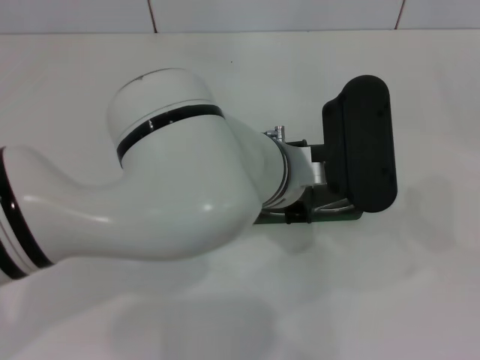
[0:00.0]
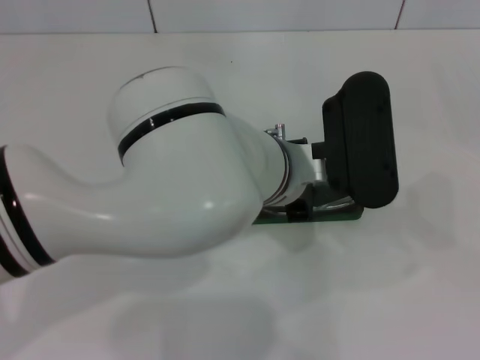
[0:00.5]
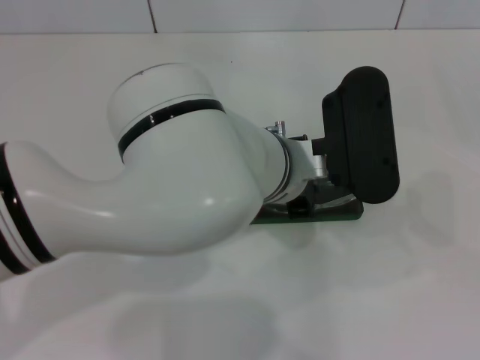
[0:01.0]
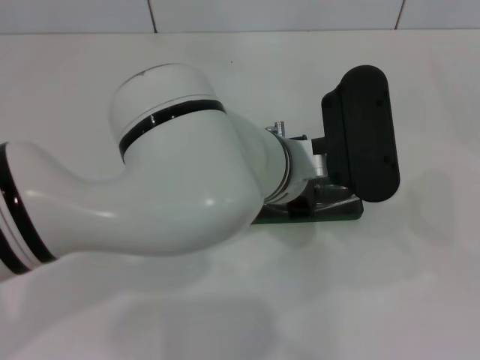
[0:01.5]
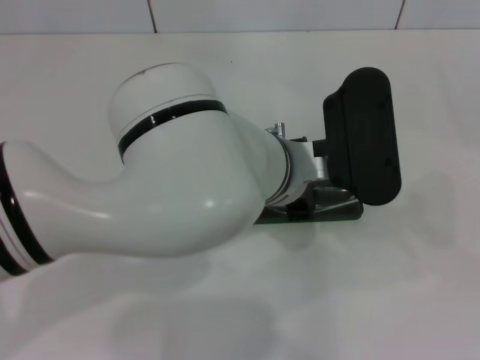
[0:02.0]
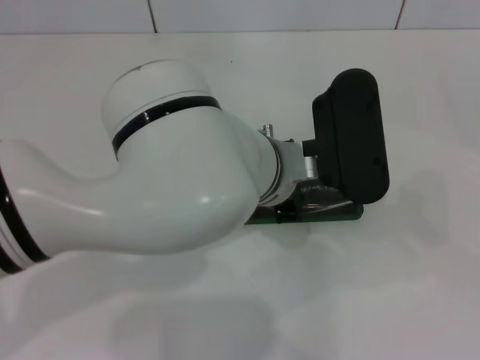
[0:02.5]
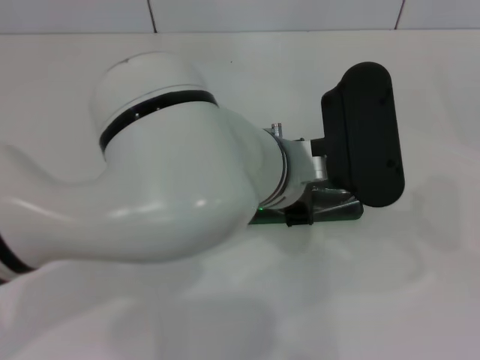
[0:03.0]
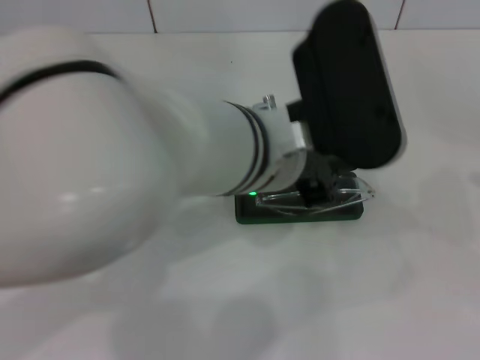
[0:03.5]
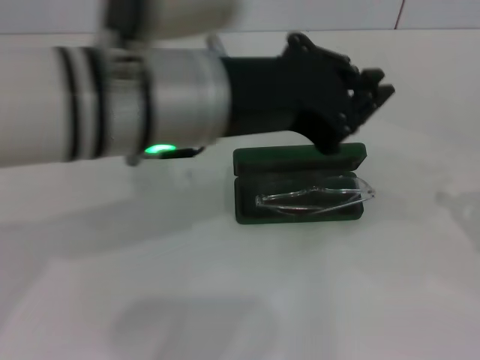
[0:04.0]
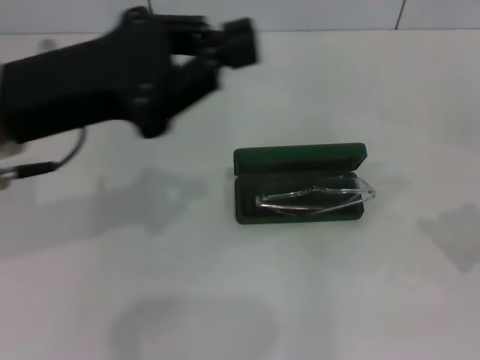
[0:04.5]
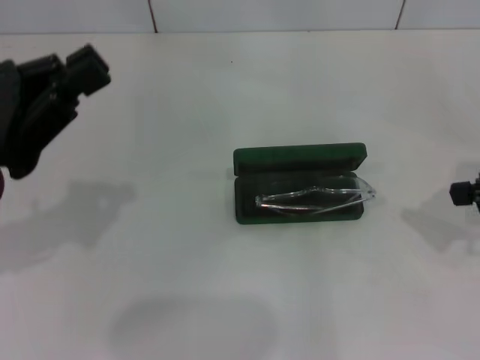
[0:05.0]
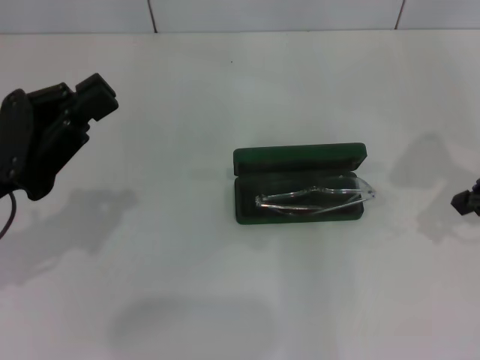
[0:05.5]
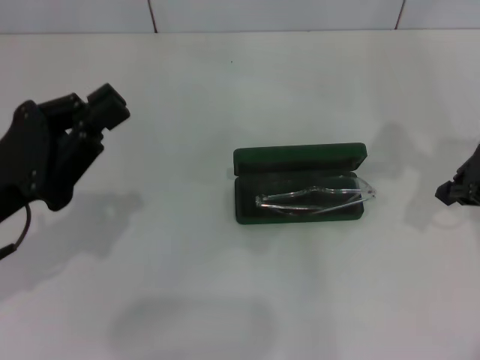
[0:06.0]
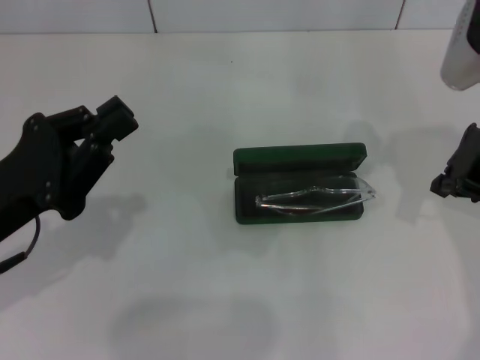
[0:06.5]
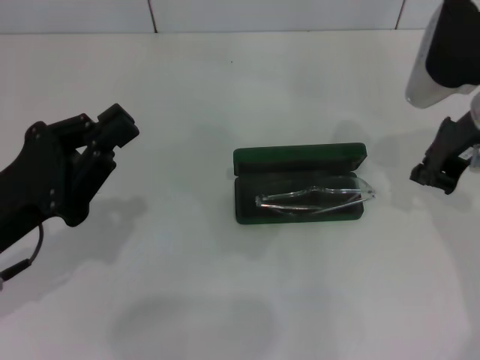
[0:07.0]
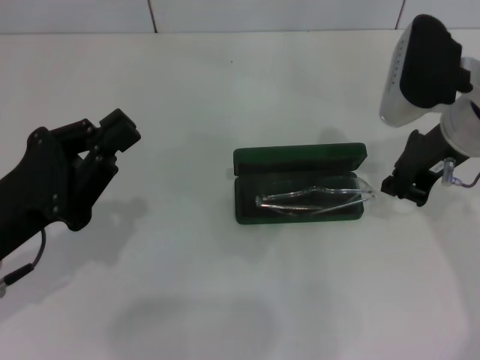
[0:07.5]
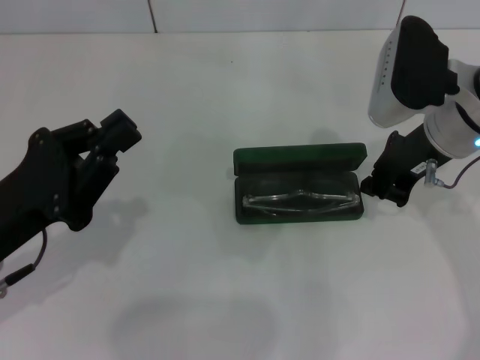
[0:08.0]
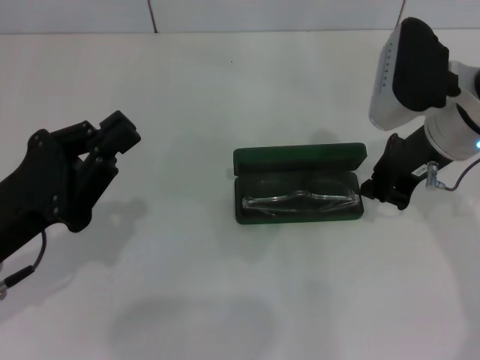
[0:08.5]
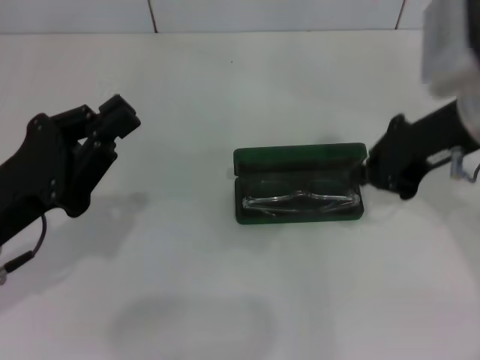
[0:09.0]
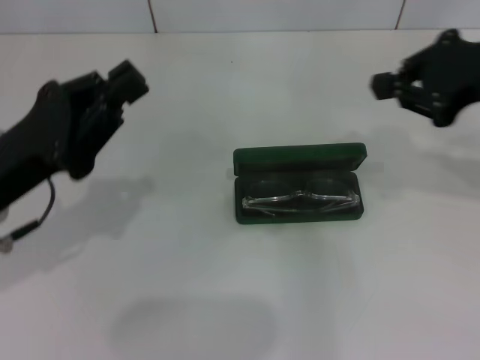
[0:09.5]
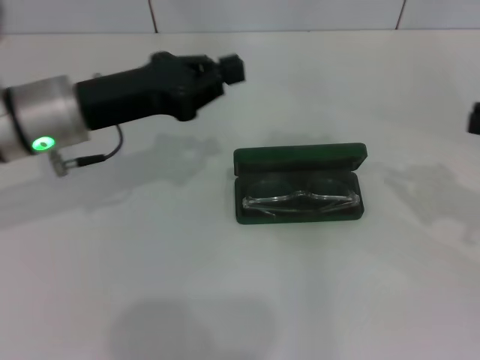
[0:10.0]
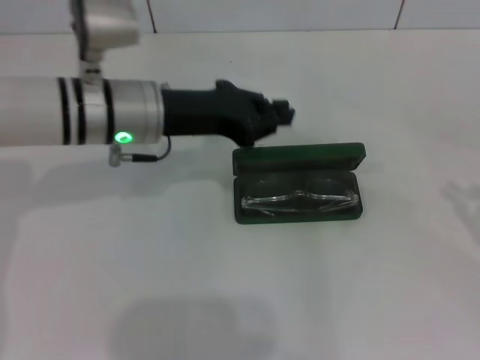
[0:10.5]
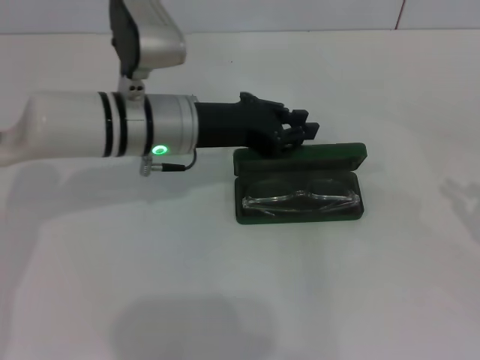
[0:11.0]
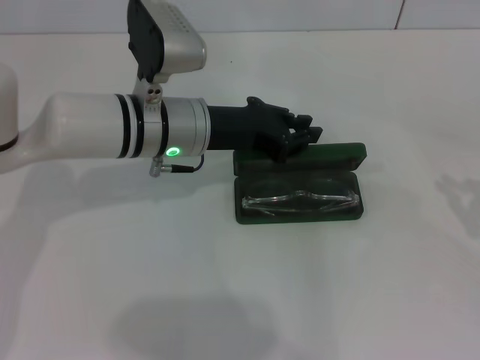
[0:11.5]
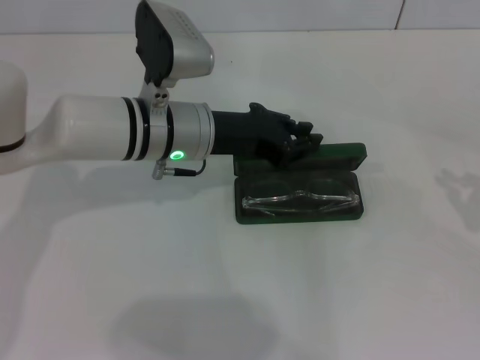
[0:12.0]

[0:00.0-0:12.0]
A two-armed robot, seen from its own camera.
0:00.0 to 0:02.0: Both grippers stay about where they are.
0:02.0 to 0:04.0: The right gripper goes roughly 5 cm forward, while the left gripper is displaced upward and to the left by about 15 cm.
0:04.0 to 0:06.0: The right gripper moves to the left, forward and upward, roughly 20 cm. Meanwhile the left gripper moves to the left and downward, about 20 cm.
0:06.0 to 0:08.0: The right gripper moves to the left, roughly 10 cm.
0:08.0 to 0:10.0: The right gripper shifts about 20 cm to the right and backward. Meanwhile the left gripper goes about 15 cm forward and to the right.
0:10.0 to 0:12.0: The right gripper travels downward by some 5 cm; the left gripper is displaced to the right by about 10 cm.

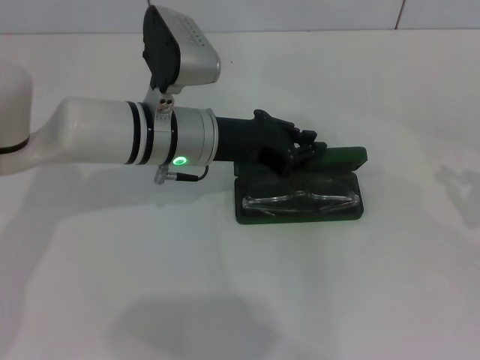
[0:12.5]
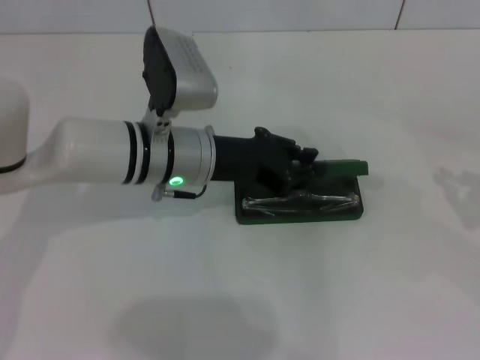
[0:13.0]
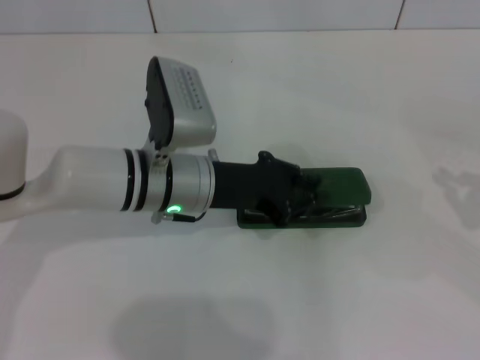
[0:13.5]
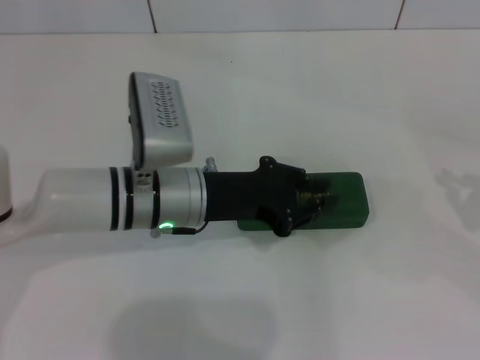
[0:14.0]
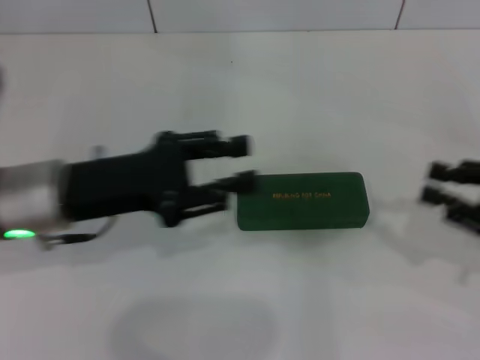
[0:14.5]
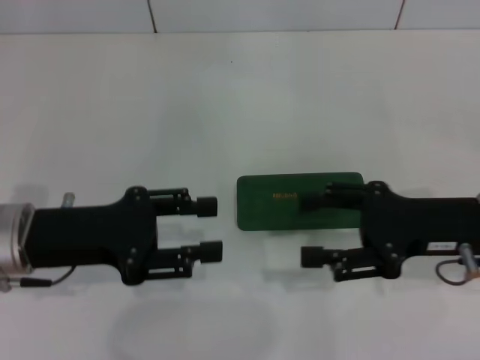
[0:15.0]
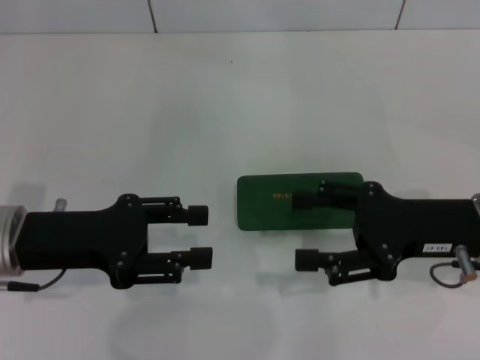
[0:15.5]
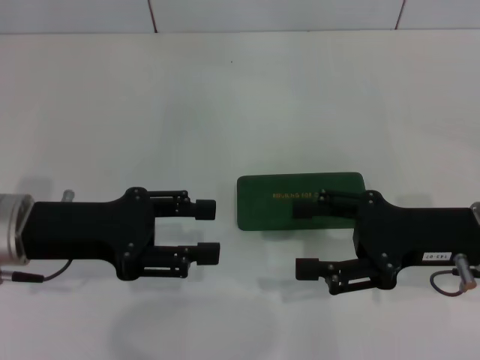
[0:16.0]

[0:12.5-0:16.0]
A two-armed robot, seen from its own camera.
0:12.5 to 0:14.5: The right gripper travels to the left by approximately 5 cm; the left gripper moves to the left and backward, some 15 cm.
0:14.5 to 0:16.0: The right gripper heads to the left, covering approximately 10 cm, and opens.

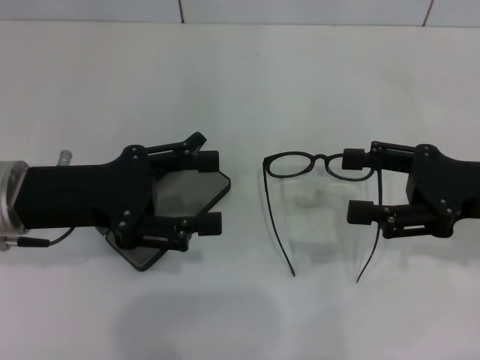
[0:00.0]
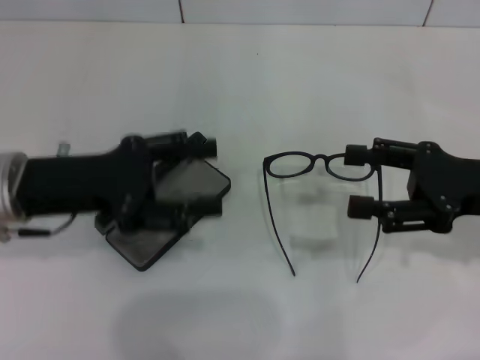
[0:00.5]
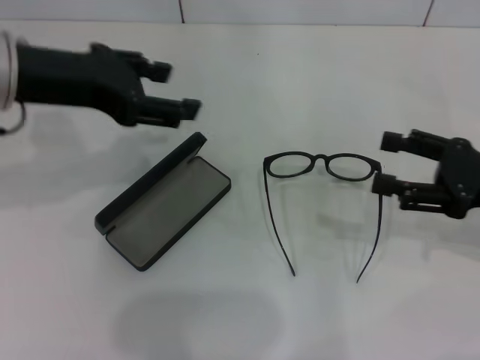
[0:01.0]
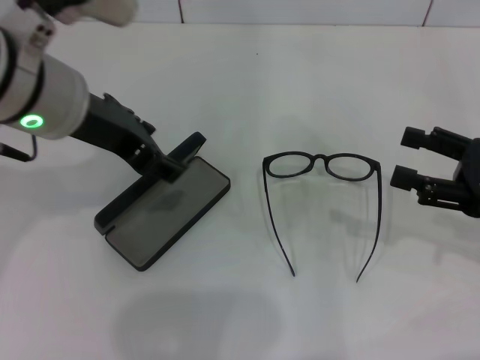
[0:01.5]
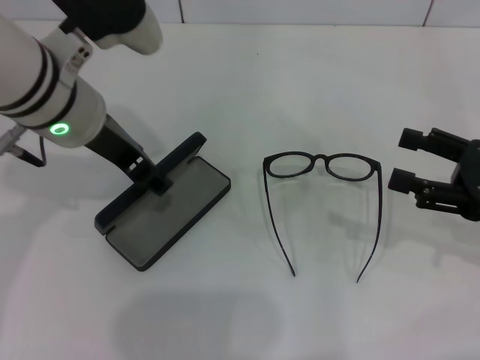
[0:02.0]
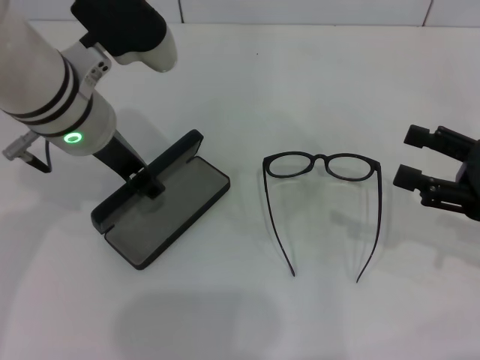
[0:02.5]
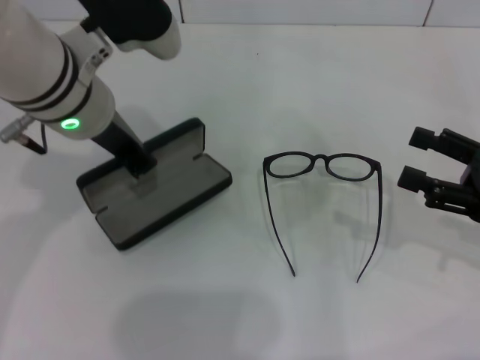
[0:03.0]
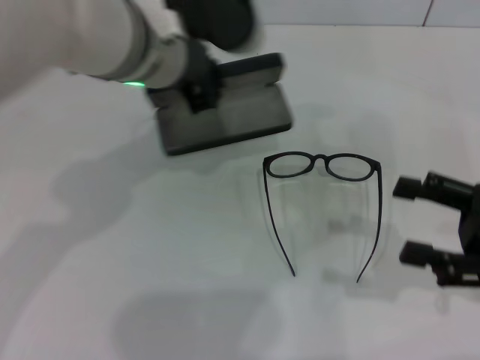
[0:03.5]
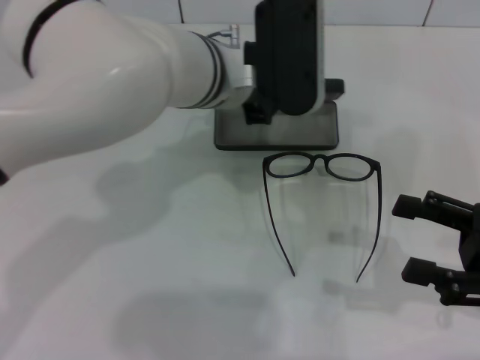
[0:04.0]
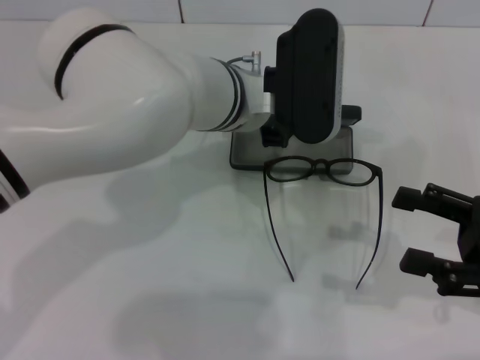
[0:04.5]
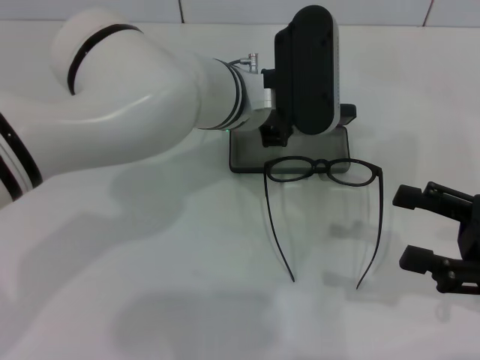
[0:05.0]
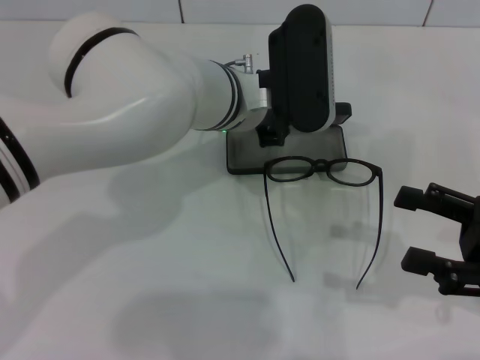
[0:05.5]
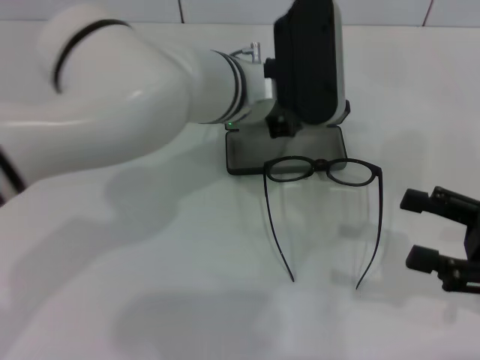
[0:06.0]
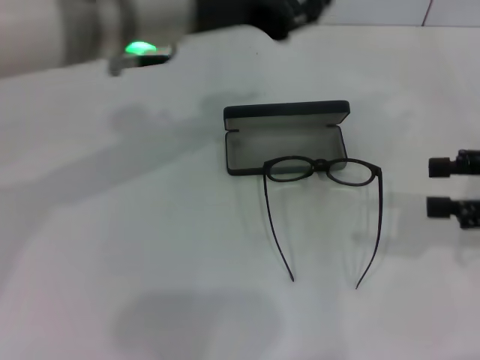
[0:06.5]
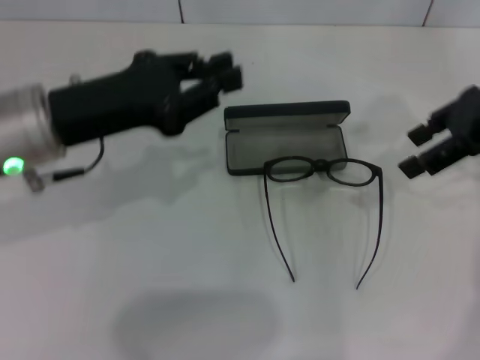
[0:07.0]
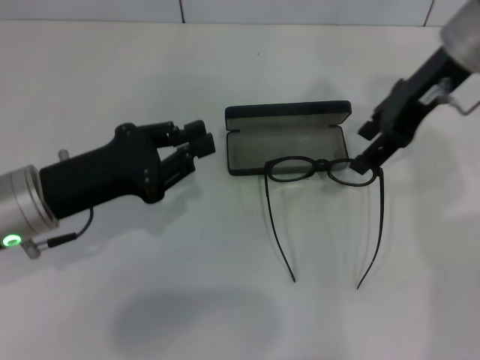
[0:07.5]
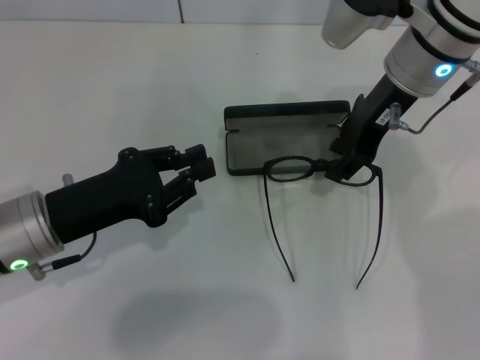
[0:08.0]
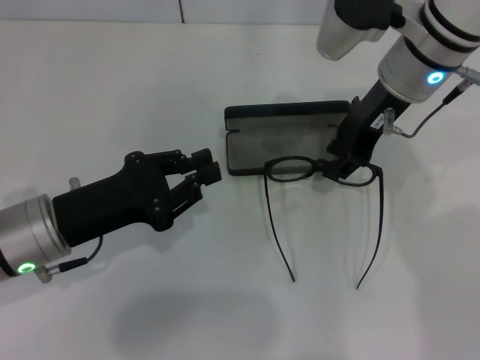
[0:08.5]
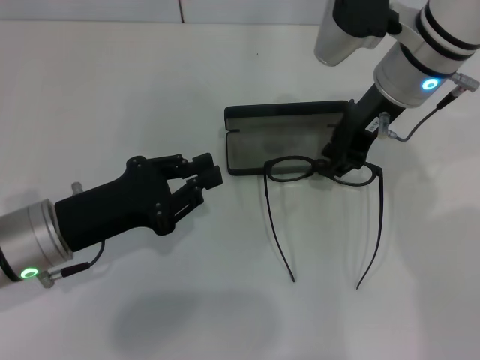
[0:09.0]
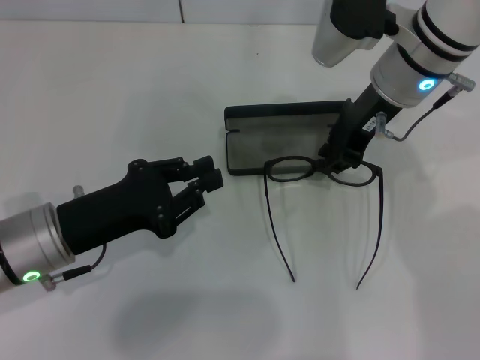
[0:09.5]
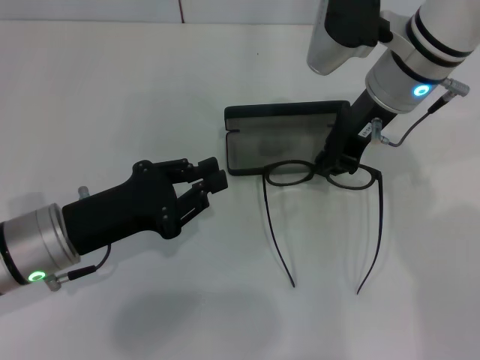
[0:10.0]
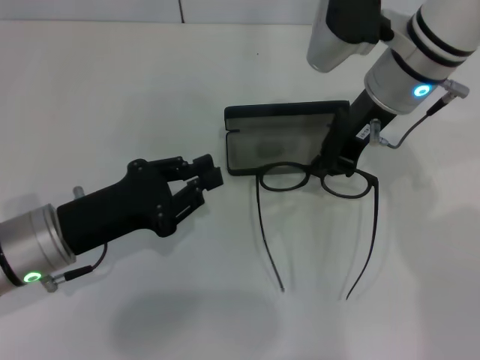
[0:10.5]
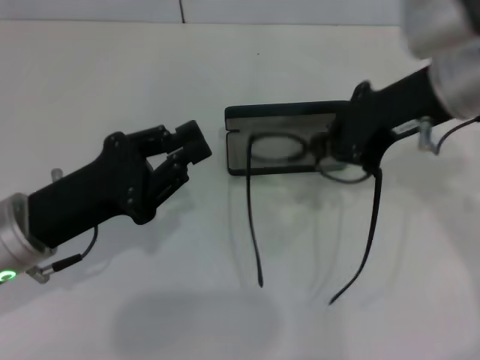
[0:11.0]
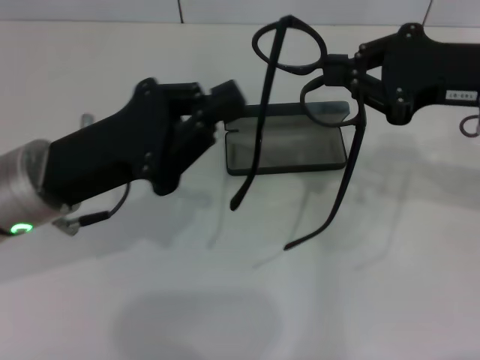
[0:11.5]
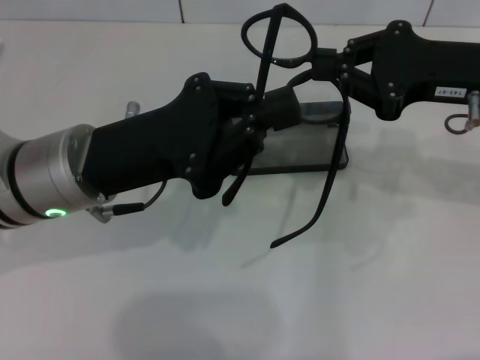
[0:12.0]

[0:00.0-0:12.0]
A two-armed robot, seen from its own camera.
Step, 0:00.0 to 0:02.5: Grab the glasses case with your left hand.
Step, 0:03.0 to 0:06.0: Place the glasses case in the center of the table with your left hand.
Step, 0:06.5 to 0:10.0: Grab the eyeglass frame with your right hand.
0:00.0 to 0:02.0: The right gripper moves some 5 cm; the left gripper heads to the right, upward and forward, covering approximately 10 cm.
0:02.0 to 0:04.0: The left gripper is displaced to the right by approximately 10 cm, and closes; the right gripper ends up about 5 cm from where it was.
0:04.0 to 0:06.0: The grippers move only a little.
0:06.0 to 0:08.0: The right gripper is displaced forward, to the left and upward by approximately 30 cm; the left gripper heads to the left and backward, covering some 25 cm.
0:08.0 to 0:10.0: The right gripper closes up.
0:10.0 to 0:12.0: The left gripper travels upward and to the right by about 10 cm, while the right gripper is displaced to the right and backward by some 15 cm.
